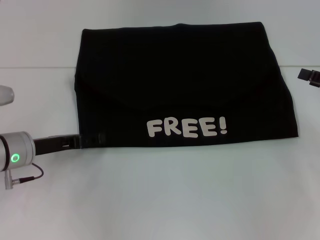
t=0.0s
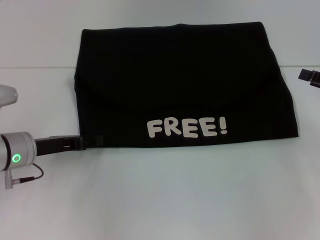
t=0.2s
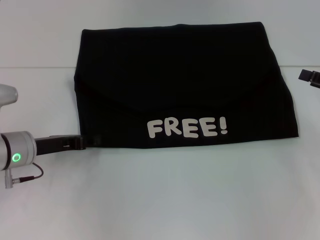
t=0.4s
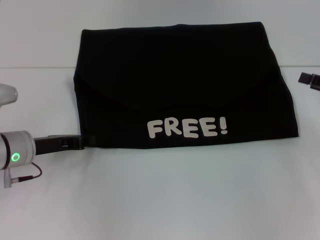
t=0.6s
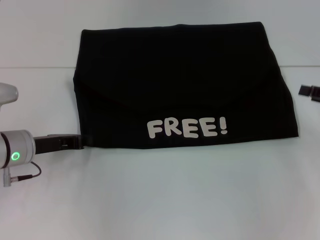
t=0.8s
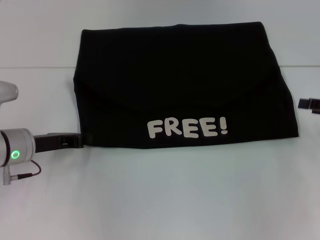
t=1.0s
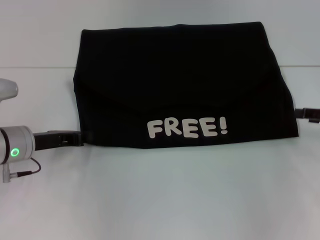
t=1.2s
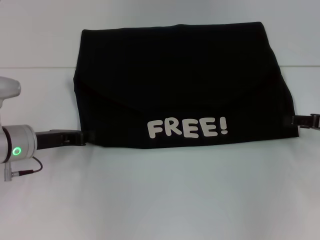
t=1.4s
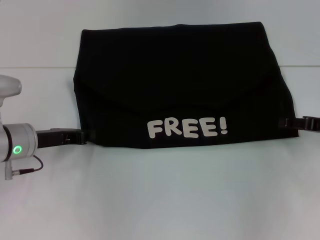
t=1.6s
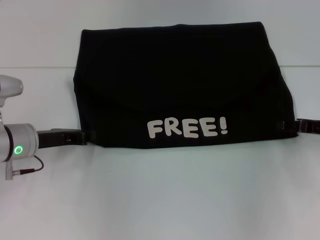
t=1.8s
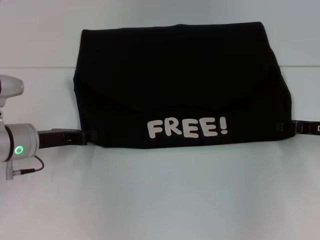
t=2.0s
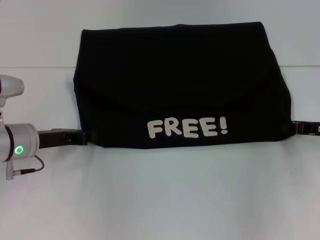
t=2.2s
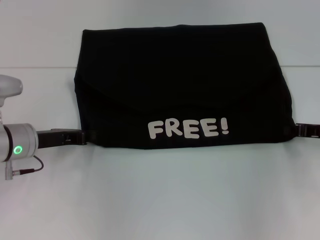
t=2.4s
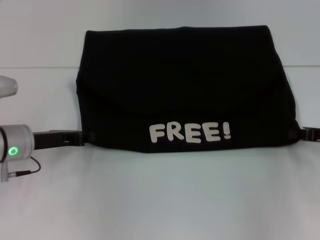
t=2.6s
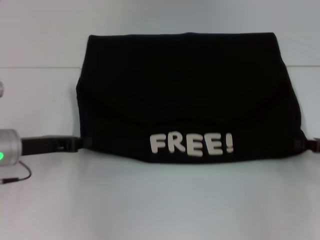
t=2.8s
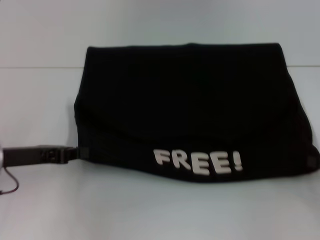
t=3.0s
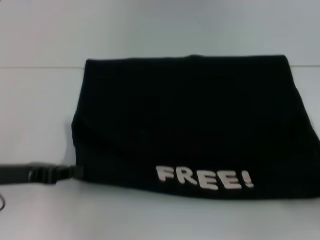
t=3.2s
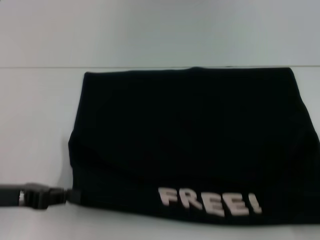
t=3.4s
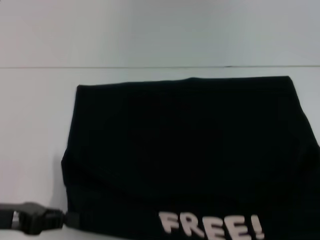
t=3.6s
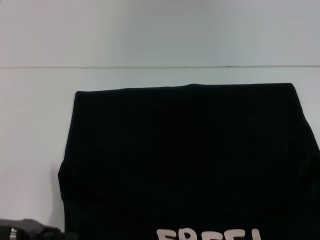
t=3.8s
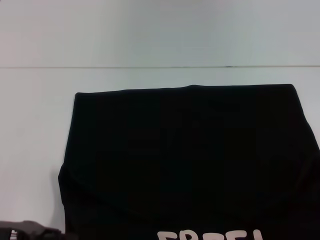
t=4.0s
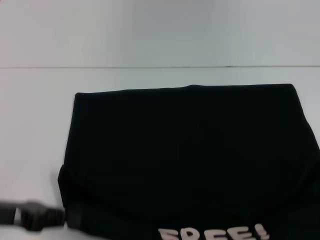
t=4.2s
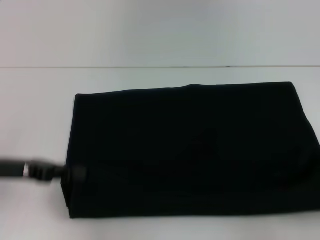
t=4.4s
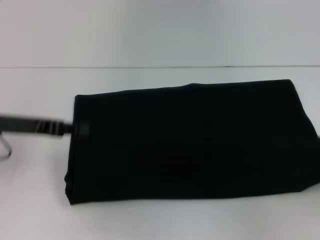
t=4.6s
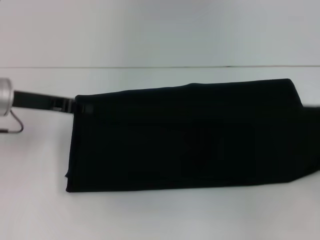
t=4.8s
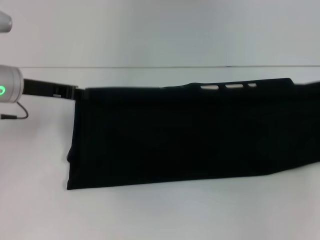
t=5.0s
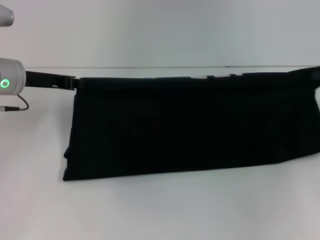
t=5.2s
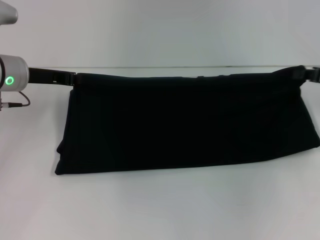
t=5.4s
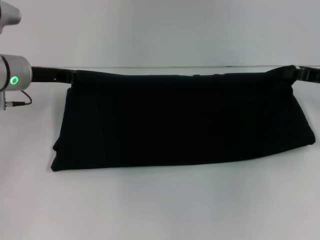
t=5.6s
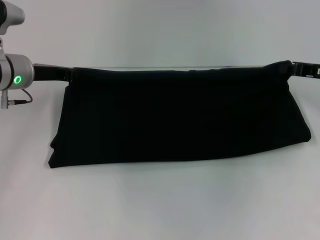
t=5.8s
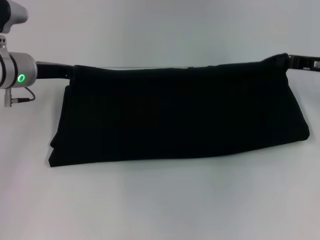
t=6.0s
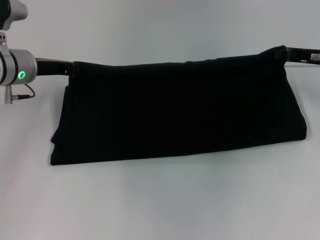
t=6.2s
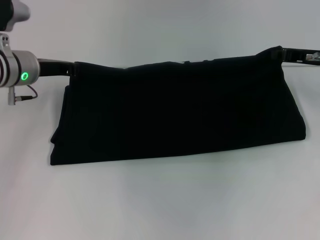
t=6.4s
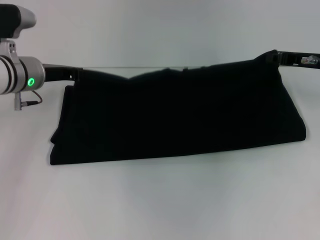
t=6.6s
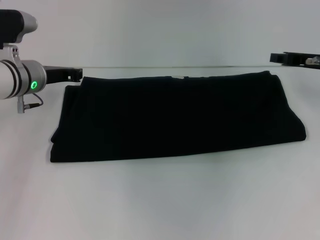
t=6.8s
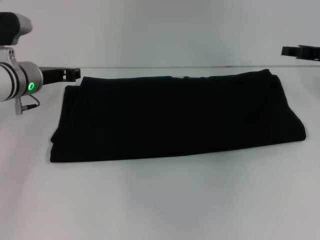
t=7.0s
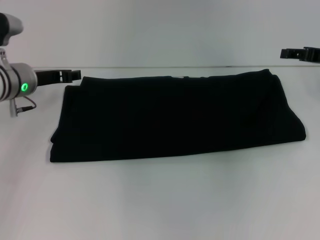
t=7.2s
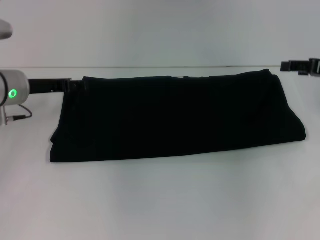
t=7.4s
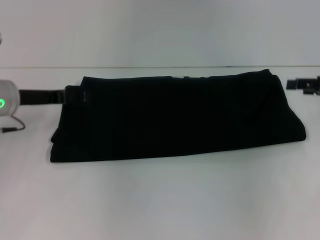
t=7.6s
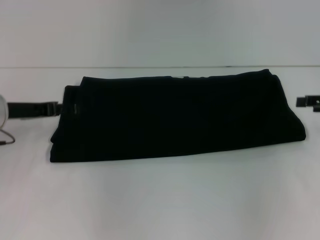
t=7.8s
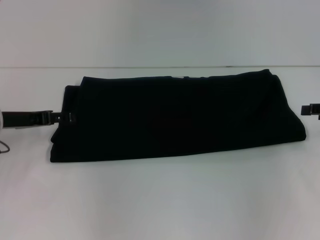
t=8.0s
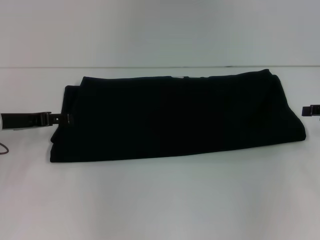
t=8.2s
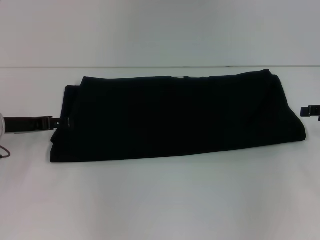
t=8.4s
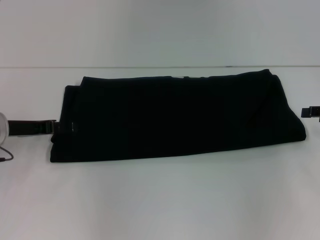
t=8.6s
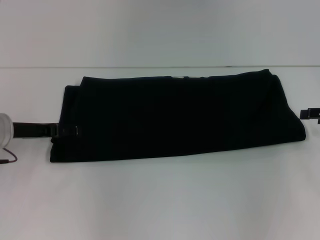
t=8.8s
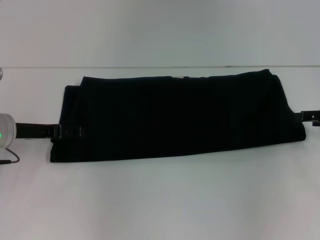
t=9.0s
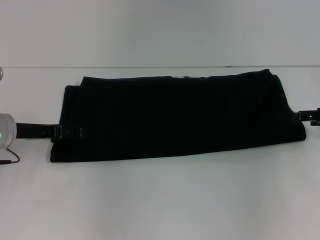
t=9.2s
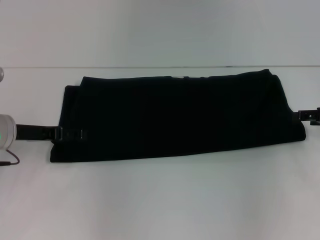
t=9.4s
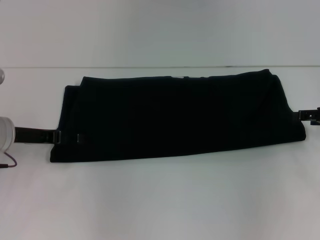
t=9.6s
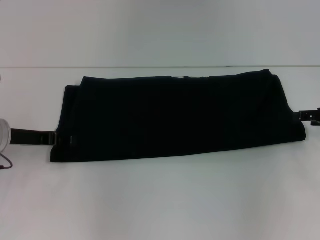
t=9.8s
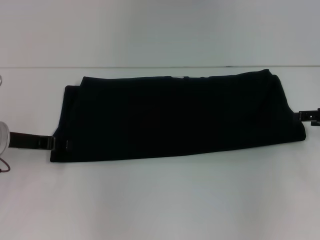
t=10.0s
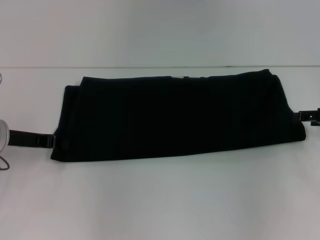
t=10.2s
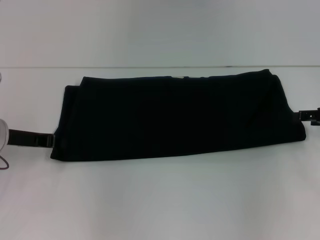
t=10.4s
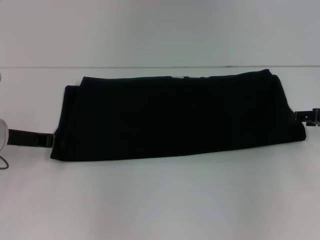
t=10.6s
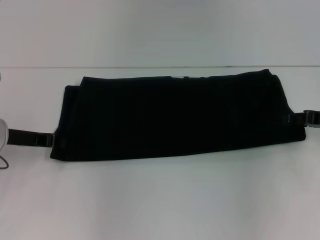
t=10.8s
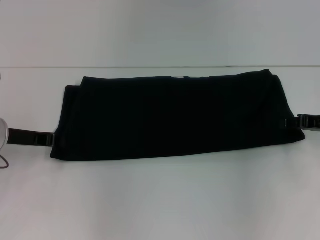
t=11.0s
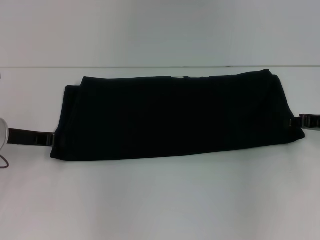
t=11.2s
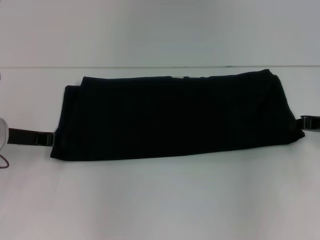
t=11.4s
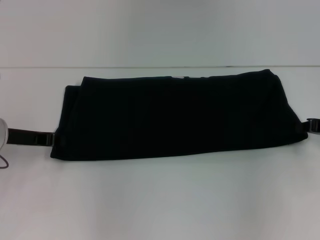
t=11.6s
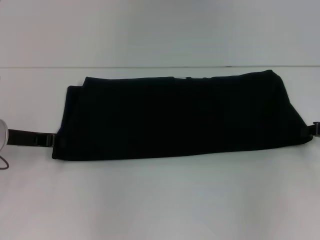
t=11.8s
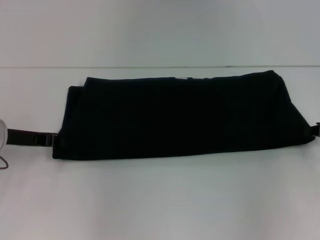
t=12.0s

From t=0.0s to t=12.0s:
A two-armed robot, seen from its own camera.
Step, from t=0.0s to t=3.8s: Pull the clothes with your left hand.
Step, from t=0.0s to t=3.8s: Pull the clothes with your right hand.
Step, from t=4.0s to t=6.6s: Fold the clothes with your right hand.
From t=0.0s to t=1.6s: The left gripper closes.
From t=1.6s to t=3.0s: The right gripper goes some 10 cm backward, and closes its fingers. Meanwhile the left gripper ends up about 5 cm from where it was.
From t=3.0s to t=4.4s: The right gripper moves backward, approximately 10 cm. The left gripper travels backward and back again, about 10 cm each way.
From t=4.4s to t=6.0s: The right gripper goes roughly 25 cm forward and to the left; the left gripper moves forward, some 15 cm.
From t=6.0s to t=7.6s: The left gripper moves roughly 5 cm, and opens up; the right gripper changes place by roughly 5 cm, and opens up.
From t=7.6s to t=9.0s: The grippers make only small movements.
From t=9.0s to t=10.4s: The left gripper closes up.
From t=10.4s to t=12.0s: The right gripper closes its fingers.

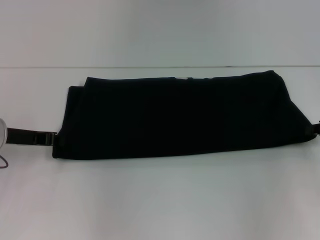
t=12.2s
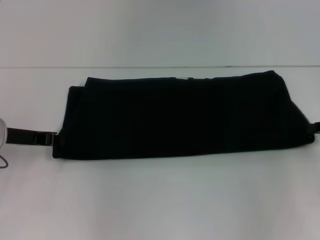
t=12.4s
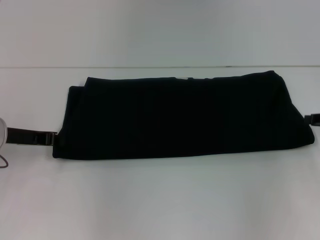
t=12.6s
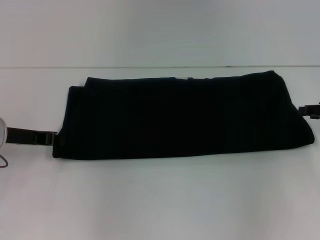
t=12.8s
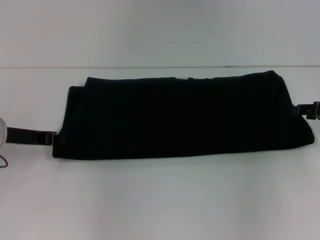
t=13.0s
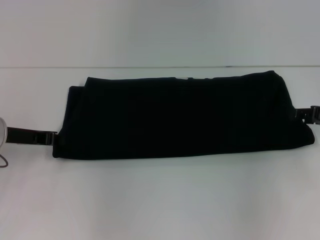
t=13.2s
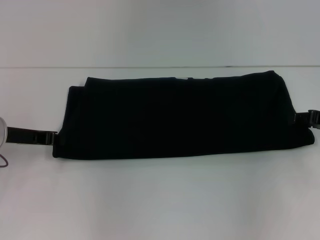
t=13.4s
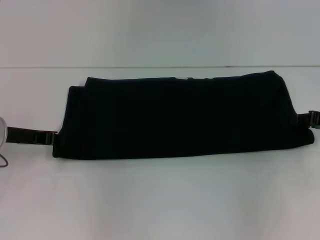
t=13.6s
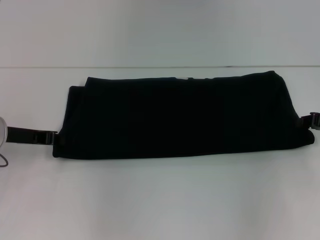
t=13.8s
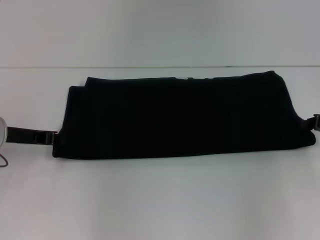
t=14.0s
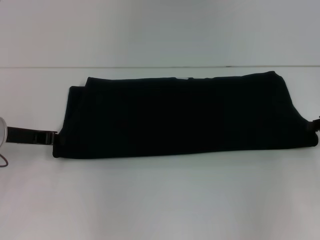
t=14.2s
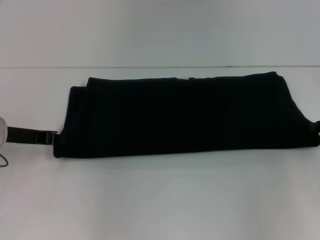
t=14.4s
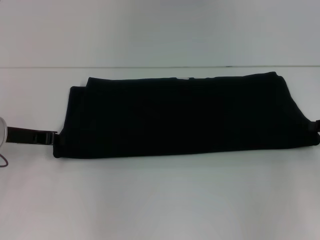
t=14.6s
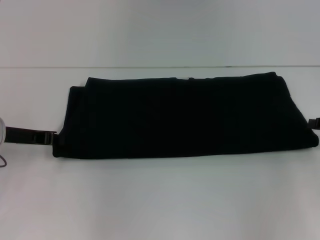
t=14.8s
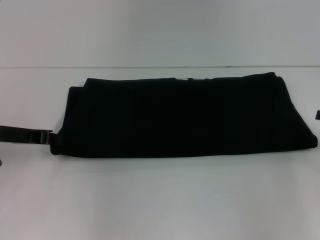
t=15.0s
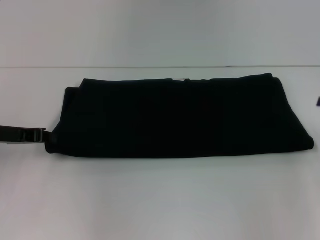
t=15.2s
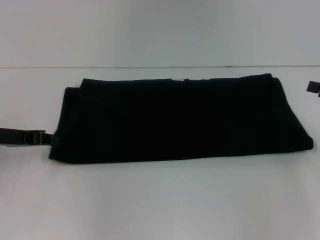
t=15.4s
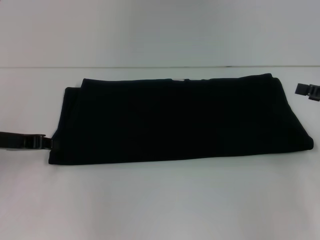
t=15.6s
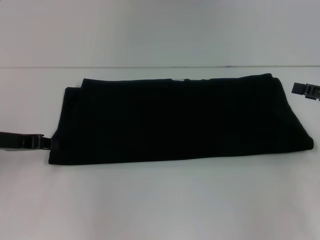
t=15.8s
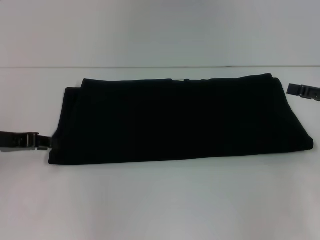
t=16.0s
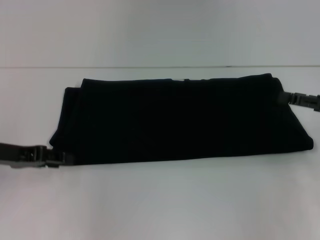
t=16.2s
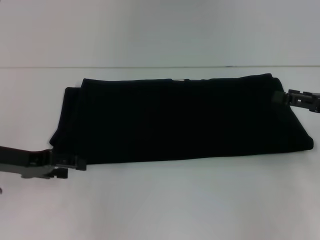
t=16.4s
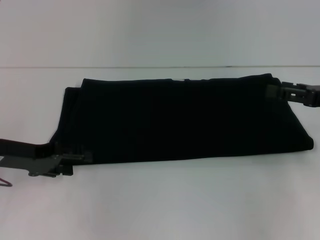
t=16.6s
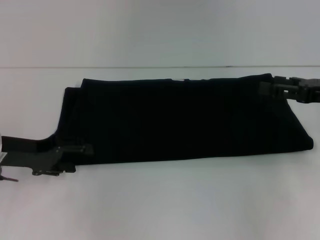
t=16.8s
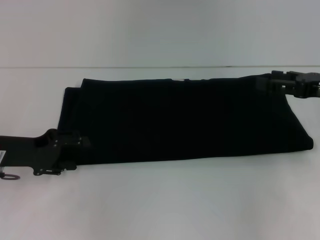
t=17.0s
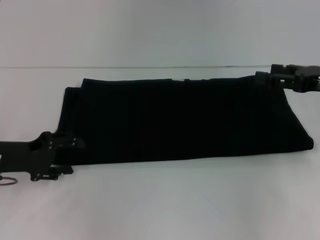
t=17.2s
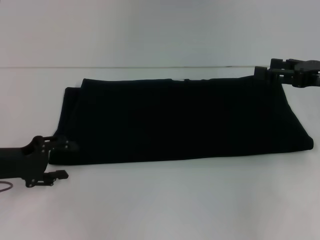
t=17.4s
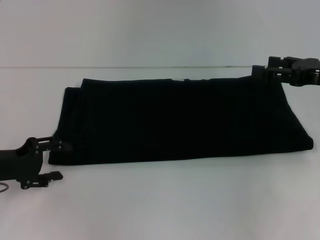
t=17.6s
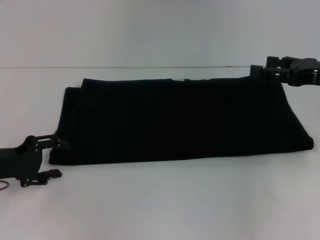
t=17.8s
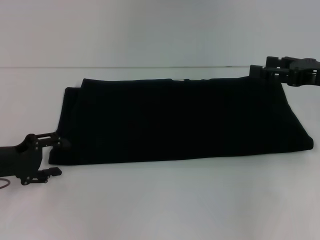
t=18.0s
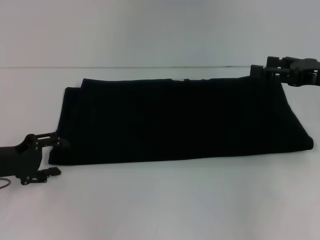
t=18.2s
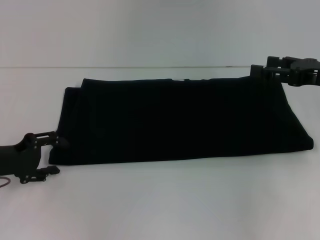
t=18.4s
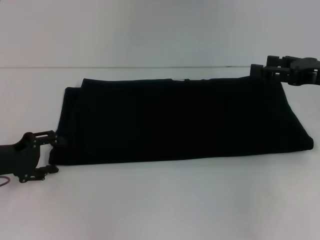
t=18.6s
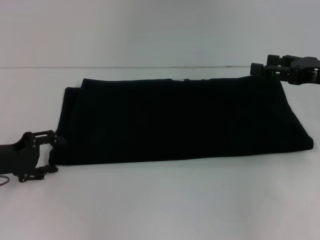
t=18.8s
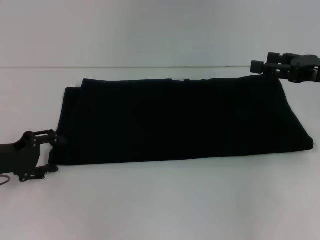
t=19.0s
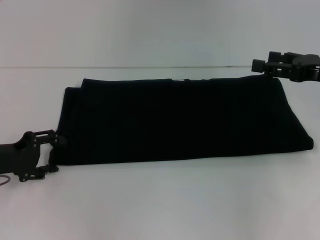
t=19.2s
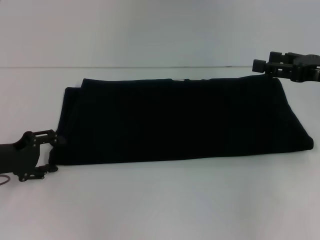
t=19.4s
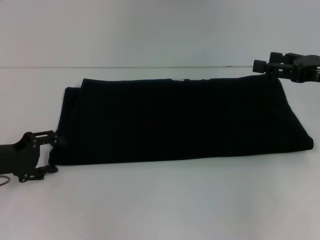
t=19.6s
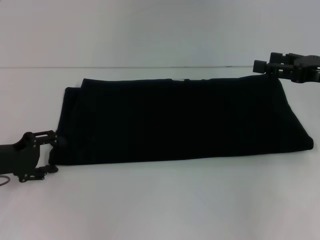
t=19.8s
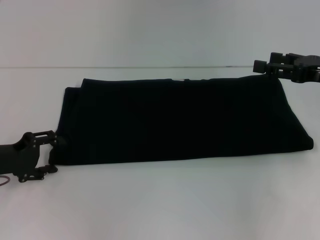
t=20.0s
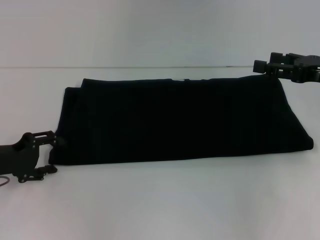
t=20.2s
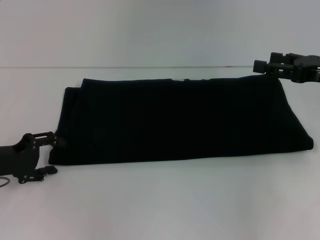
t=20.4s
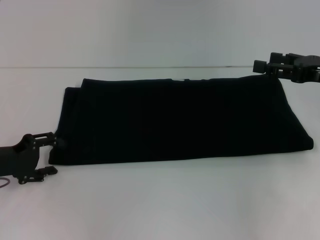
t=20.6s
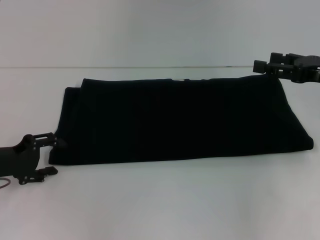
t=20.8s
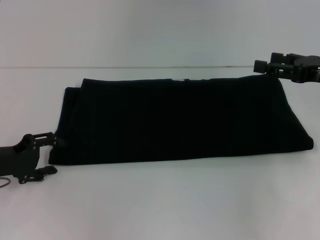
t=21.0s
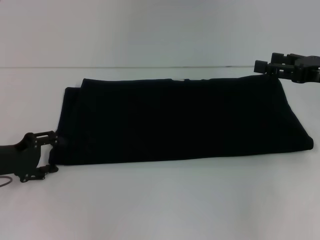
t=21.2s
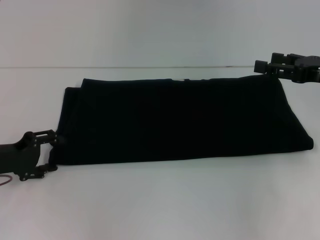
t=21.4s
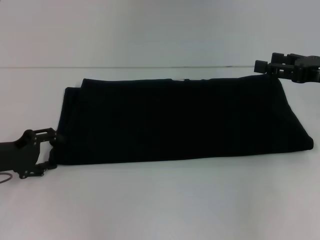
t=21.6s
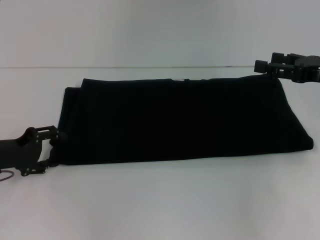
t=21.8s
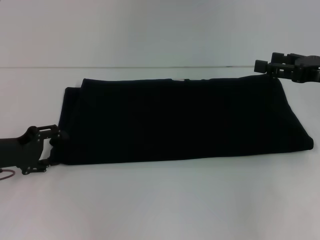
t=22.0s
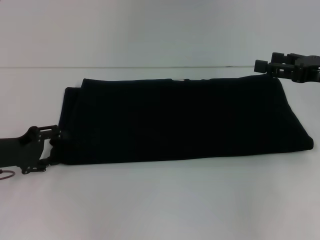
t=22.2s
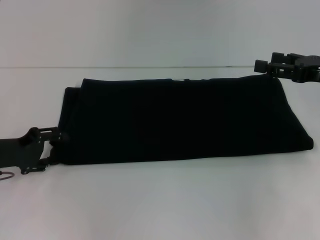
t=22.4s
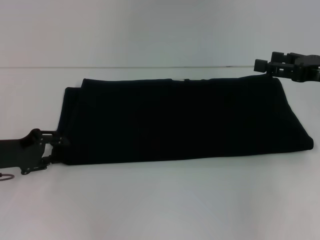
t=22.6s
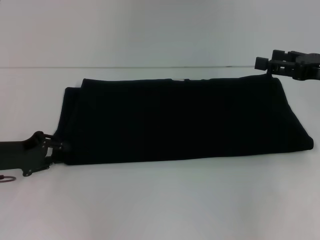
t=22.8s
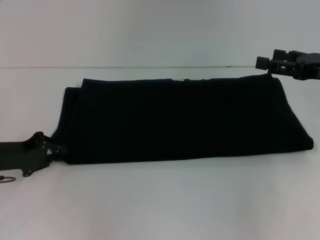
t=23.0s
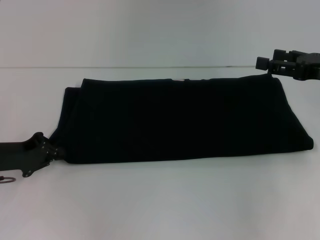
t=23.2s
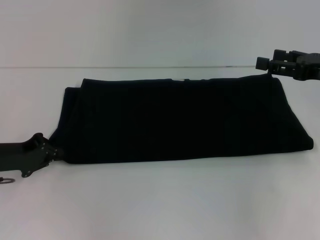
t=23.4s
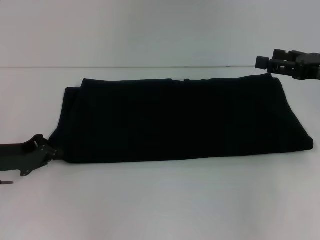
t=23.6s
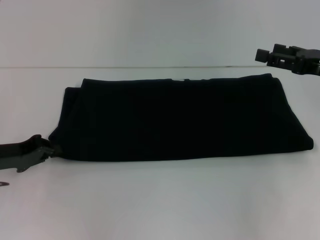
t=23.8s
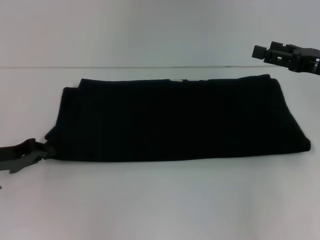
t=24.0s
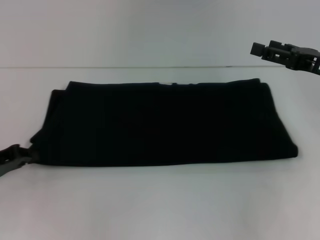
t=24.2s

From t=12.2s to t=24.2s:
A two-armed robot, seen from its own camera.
From t=12.2s to t=13.8s: The grippers stay close to where they were, moving slightly.
From t=13.8s to t=15.2s: The right gripper changes place by about 5 cm.
From t=15.2s to t=16.6s: The right gripper travels to the left by approximately 5 cm, and opens its fingers, while the left gripper opens.
From t=18.2s to t=21.2s: Both grippers stay about where they are.
From t=21.2s to t=22.6s: The grippers move only a little.
From t=22.6s to t=24.2s: The left gripper closes up.
